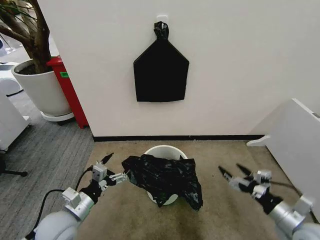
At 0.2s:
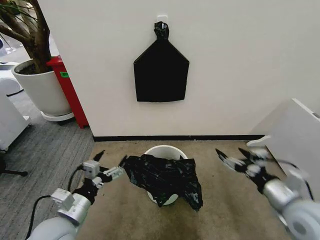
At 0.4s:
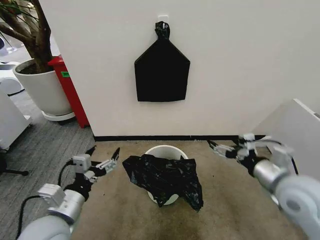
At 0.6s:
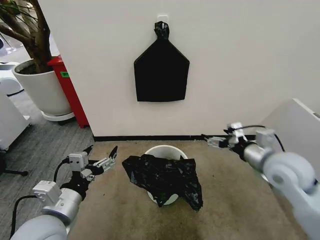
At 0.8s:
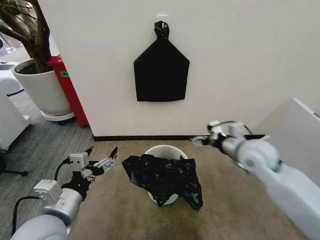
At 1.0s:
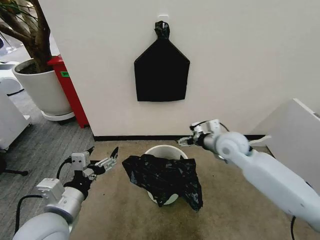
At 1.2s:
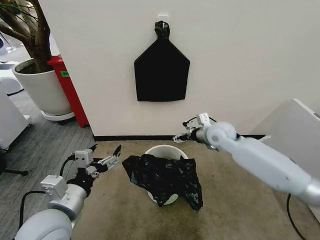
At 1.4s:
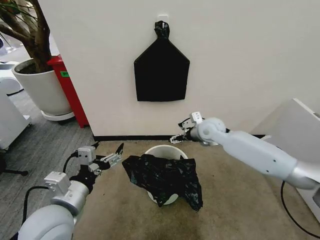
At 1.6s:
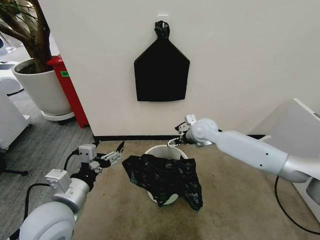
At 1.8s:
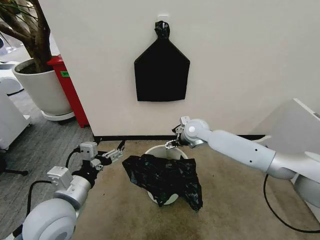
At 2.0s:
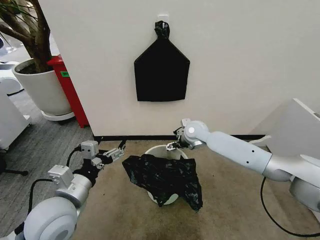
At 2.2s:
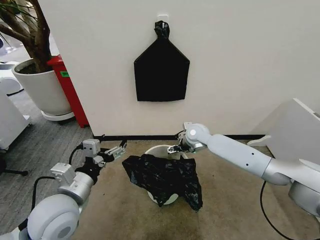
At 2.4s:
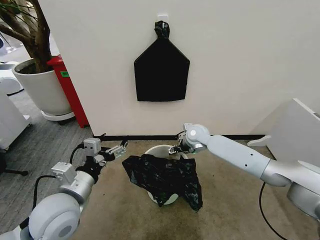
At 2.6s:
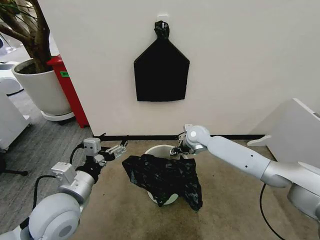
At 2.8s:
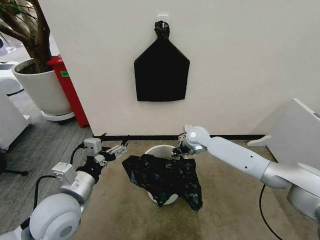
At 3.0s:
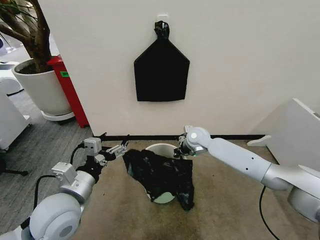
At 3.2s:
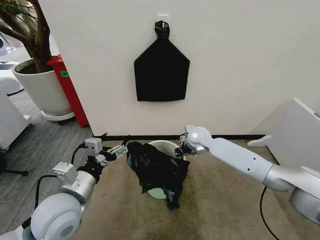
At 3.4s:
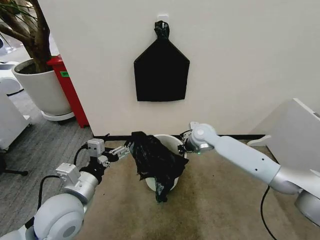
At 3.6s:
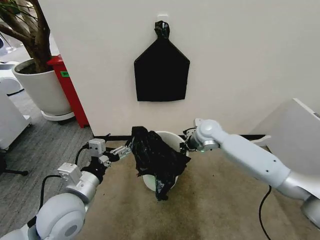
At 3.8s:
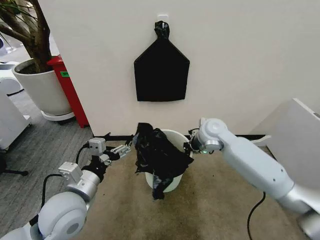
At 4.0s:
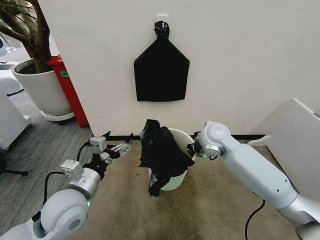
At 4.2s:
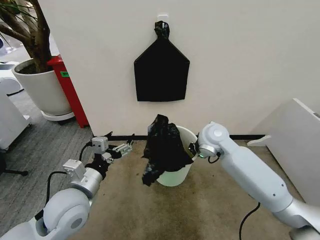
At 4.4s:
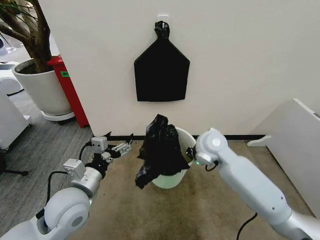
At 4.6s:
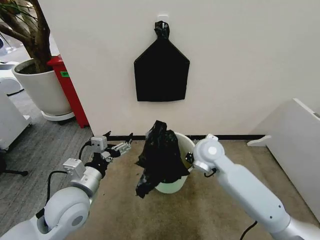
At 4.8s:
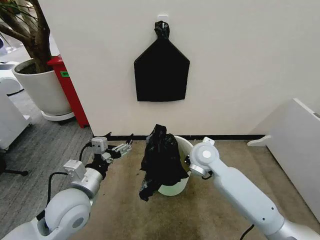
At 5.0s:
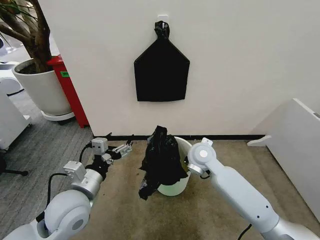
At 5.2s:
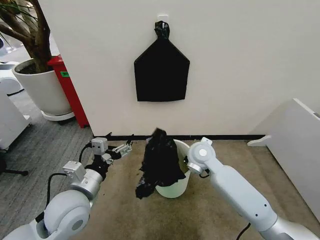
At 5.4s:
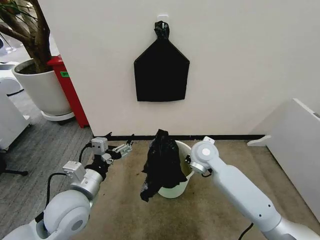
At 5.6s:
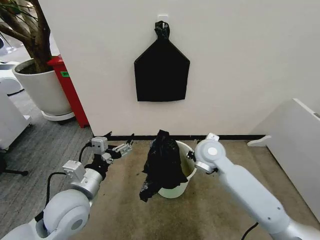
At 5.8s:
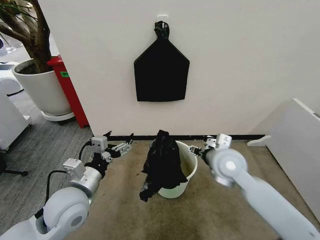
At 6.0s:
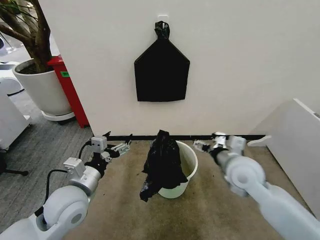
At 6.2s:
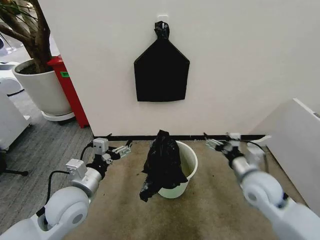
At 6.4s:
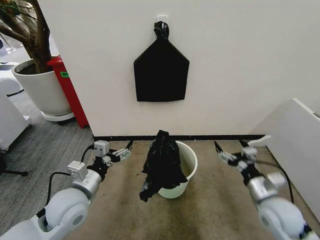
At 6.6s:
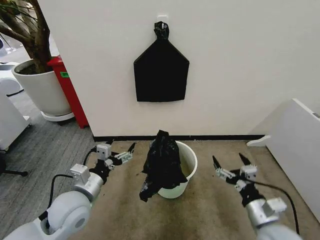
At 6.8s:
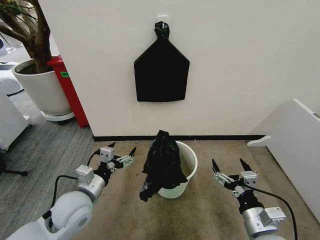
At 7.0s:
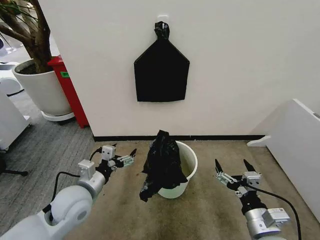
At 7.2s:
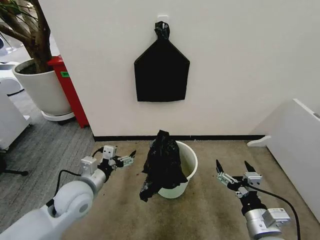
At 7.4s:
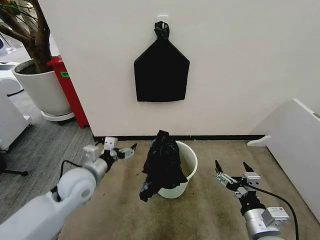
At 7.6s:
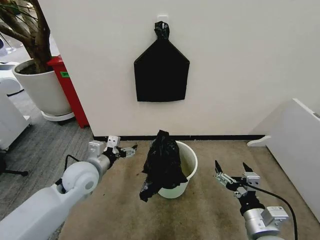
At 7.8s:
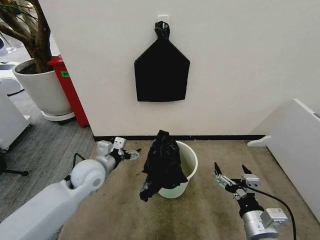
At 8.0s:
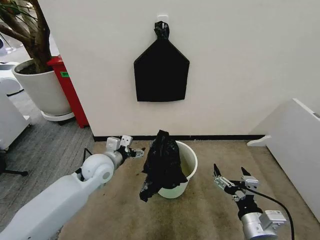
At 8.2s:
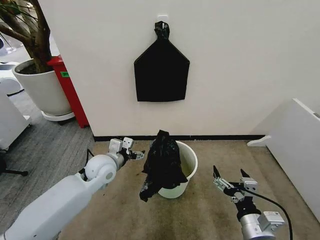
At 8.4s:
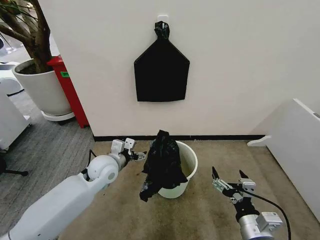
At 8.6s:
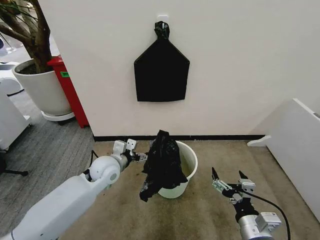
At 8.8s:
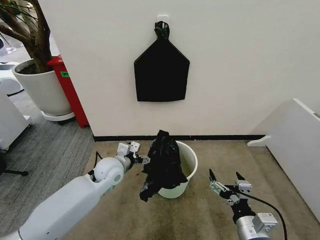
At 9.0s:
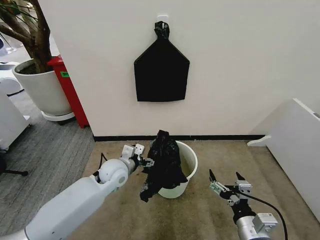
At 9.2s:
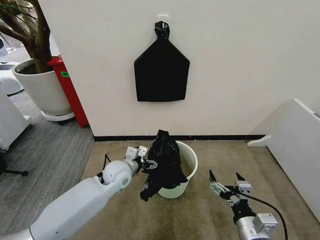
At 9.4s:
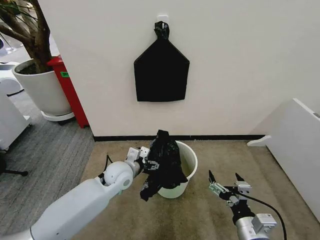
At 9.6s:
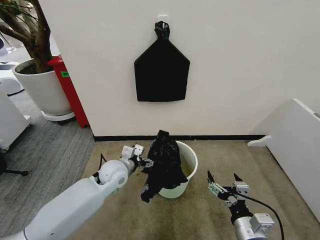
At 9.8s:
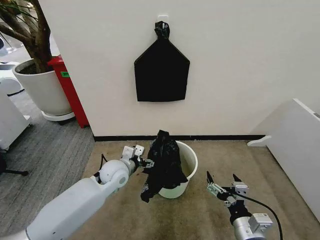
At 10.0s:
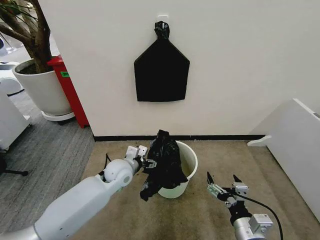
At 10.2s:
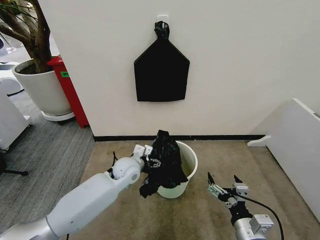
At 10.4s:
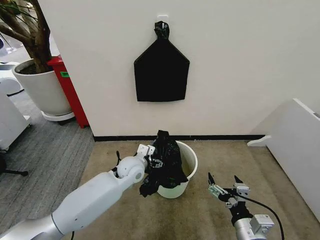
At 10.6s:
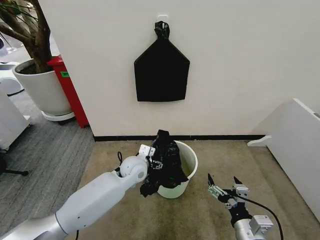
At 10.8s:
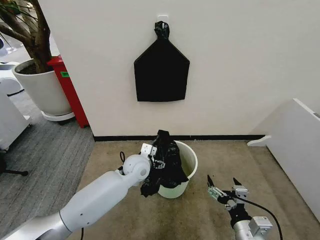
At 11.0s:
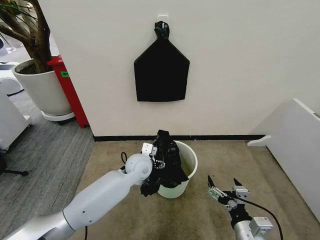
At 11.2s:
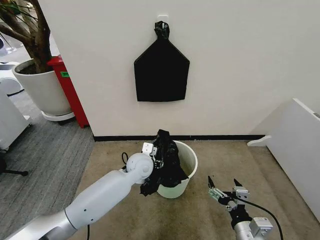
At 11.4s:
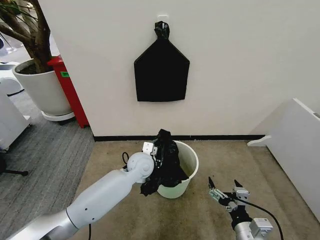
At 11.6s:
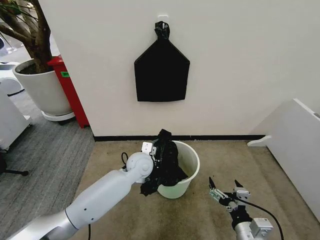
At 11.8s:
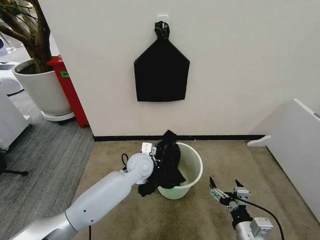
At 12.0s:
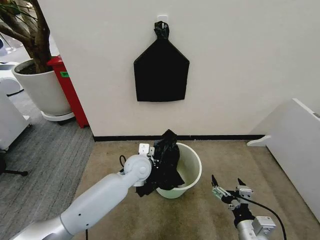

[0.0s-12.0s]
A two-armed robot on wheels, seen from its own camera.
Task of the whole recording: Place the garbage bag over the trash bin.
0.0s to 1.6s: The left gripper heads upward, covering some 10 cm; the right gripper is displaced forward and to the left by approximately 40 cm.
1.6s to 3.0s: The right gripper heads downward, covering roughly 5 cm, and closes its fingers.
3.0s to 4.4s: The right gripper goes some 15 cm backward and upward.
4.4s to 6.0s: The right gripper shifts about 10 cm backward and to the right, and opens its fingers.
6.0s to 7.6s: The left gripper travels forward by about 10 cm; the right gripper moves backward and downward, roughly 20 cm.
7.6s to 9.0s: The left gripper heads to the right, downward and forward, covering about 10 cm.
9.0s to 10.4s: The left gripper goes approximately 5 cm to the right.
10.4s to 12.0s: The left gripper closes its fingers.

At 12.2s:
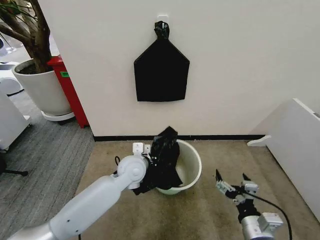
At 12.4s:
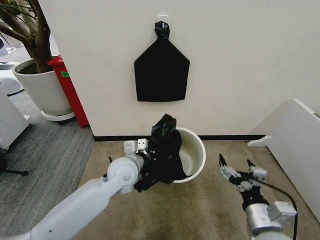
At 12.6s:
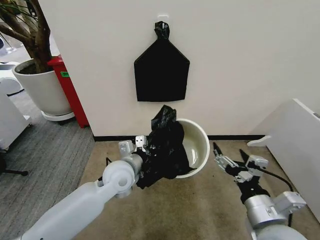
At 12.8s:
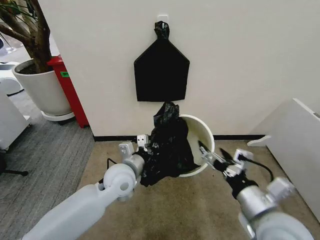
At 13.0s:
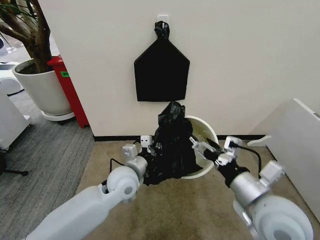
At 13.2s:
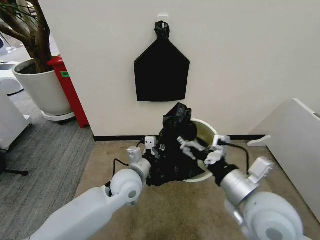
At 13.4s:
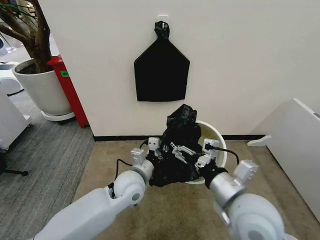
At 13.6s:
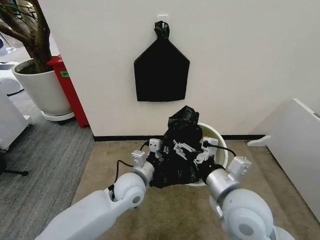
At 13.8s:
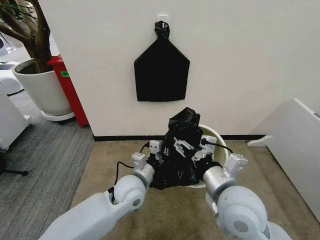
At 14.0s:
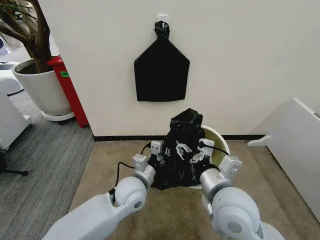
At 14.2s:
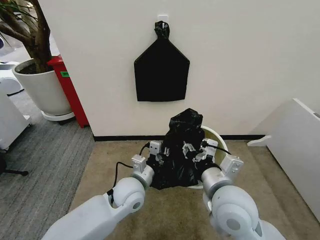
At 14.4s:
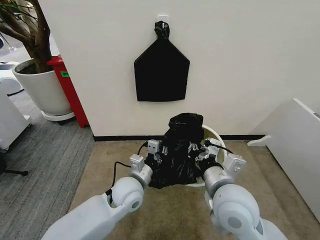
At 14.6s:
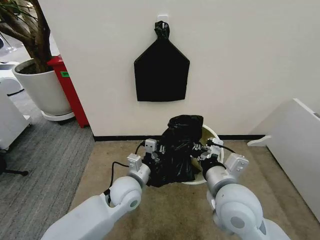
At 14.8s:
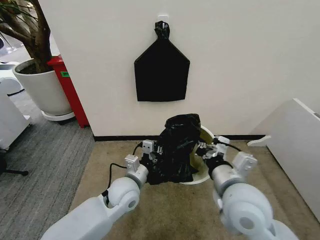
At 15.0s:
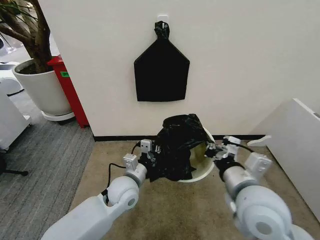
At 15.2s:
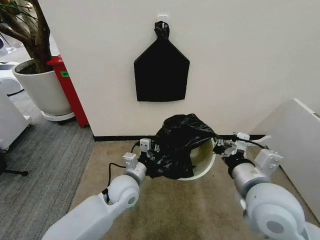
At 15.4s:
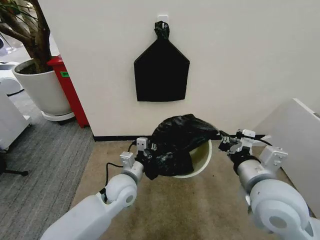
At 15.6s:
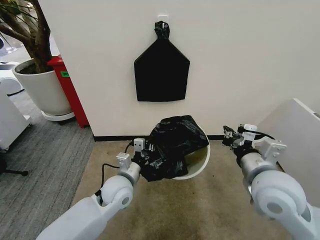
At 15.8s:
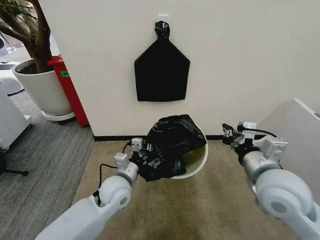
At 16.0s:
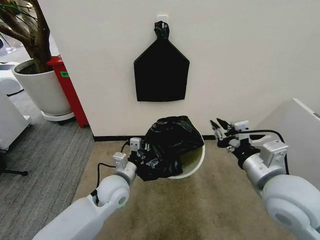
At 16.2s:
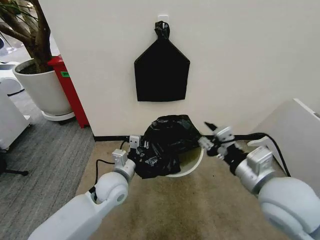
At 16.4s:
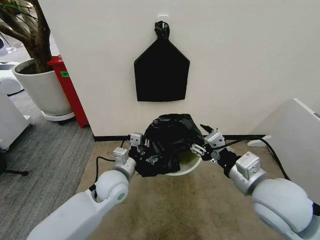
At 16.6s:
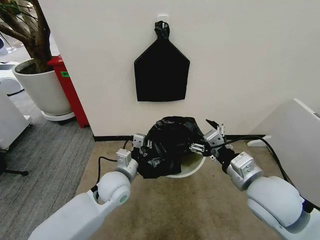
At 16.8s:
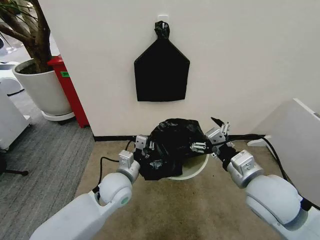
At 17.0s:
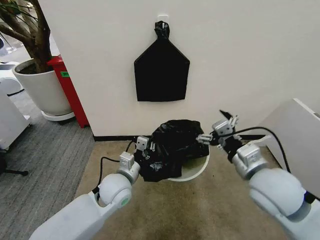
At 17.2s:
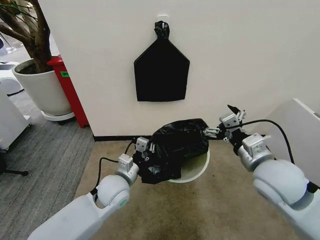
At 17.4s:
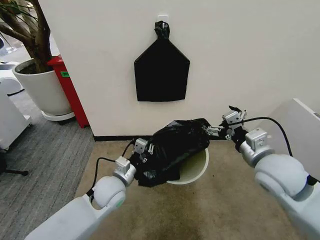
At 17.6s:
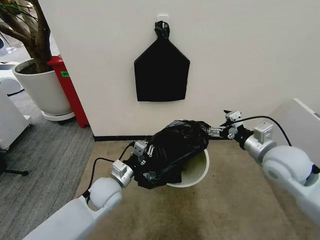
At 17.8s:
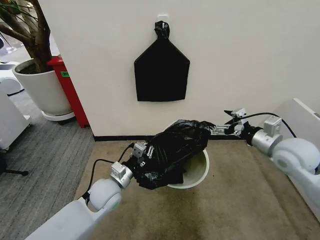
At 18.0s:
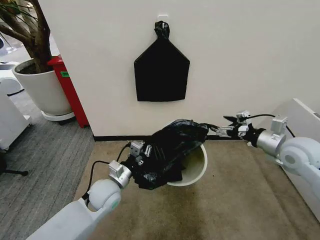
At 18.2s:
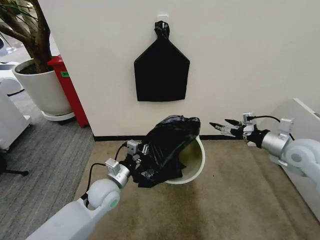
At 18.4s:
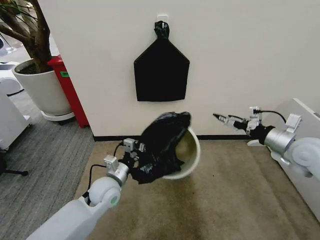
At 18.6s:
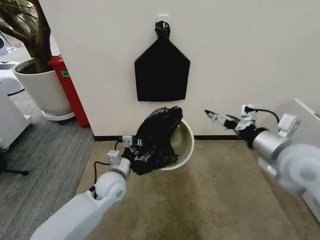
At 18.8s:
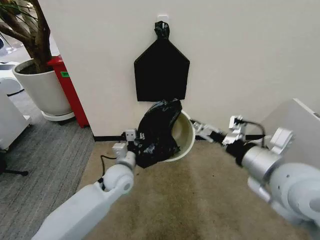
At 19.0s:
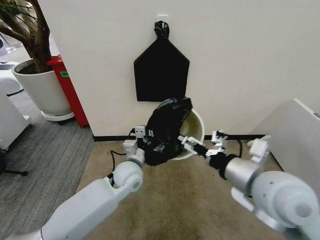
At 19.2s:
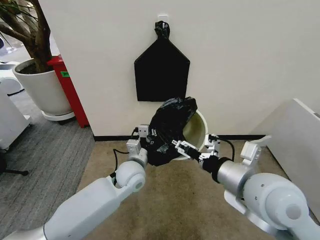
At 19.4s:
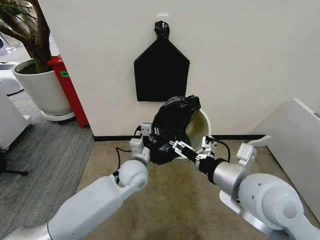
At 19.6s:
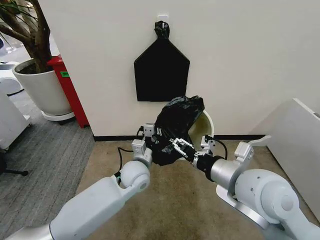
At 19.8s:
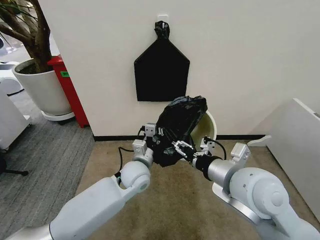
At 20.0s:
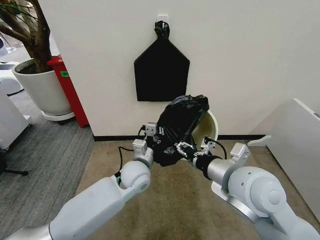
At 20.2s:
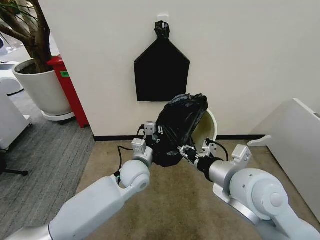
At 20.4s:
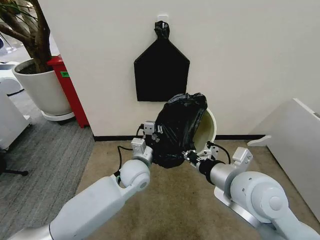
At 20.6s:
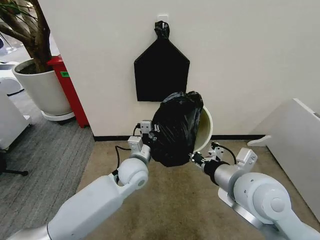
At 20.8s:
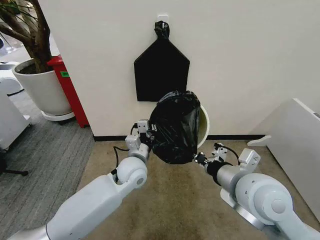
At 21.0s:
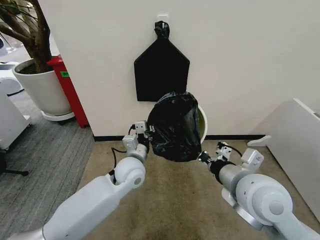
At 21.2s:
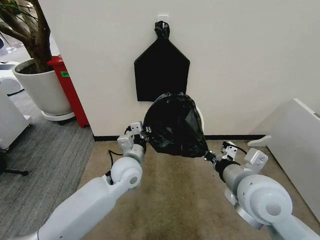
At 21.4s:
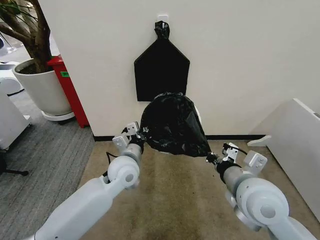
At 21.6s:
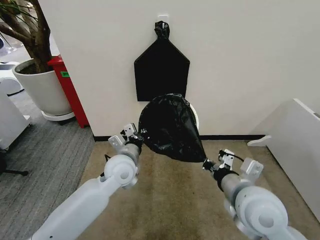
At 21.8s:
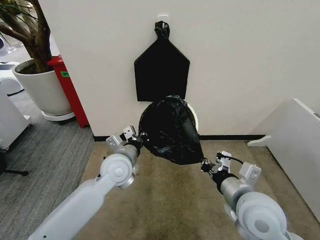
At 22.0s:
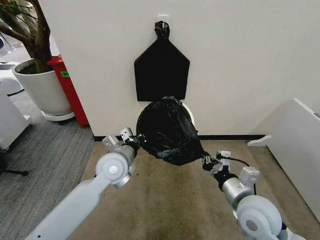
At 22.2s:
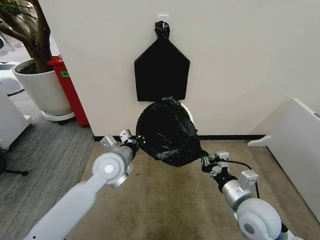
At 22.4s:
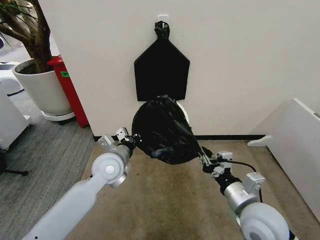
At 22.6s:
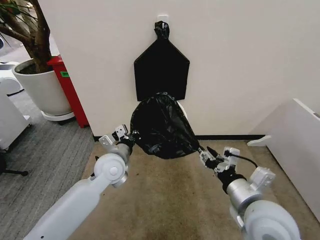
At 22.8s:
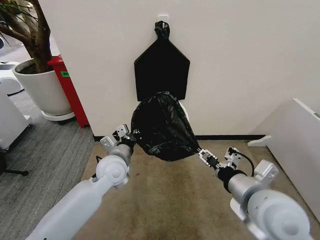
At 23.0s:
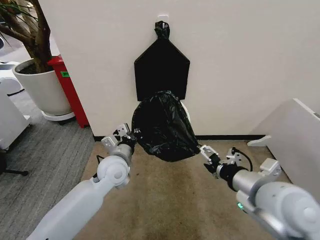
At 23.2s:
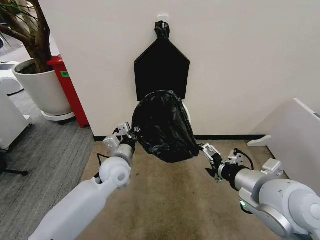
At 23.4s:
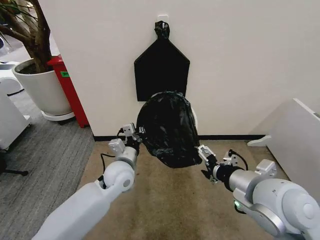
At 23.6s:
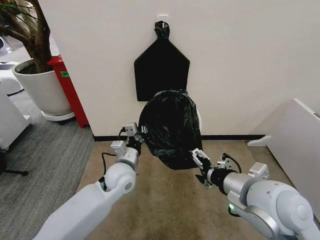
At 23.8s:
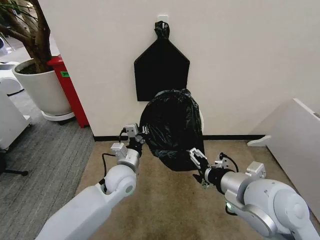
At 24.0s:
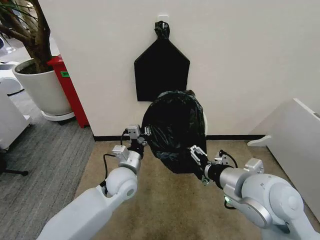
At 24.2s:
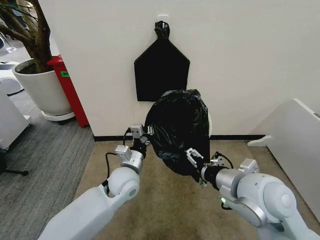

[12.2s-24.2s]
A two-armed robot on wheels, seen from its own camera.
Task of the whole recording: Place the garbage bag over the trash bin.
12.2s to 13.8s: The left gripper is displaced backward by about 5 cm; the right gripper goes some 20 cm upward, to the left and forward.
13.8s to 15.2s: The right gripper is displaced to the right by about 5 cm, and closes.
15.2s to 16.6s: The right gripper opens.
16.6s to 18.2s: The left gripper shifts by approximately 5 cm; the right gripper is displaced to the right and forward by roughly 20 cm.
18.2s to 19.8s: The left gripper is displaced to the right by about 10 cm. The right gripper moves to the left and backward, approximately 25 cm.
19.8s to 21.2s: The right gripper closes.
21.2s to 22.6s: The left gripper moves to the left, about 5 cm. The right gripper opens up.
22.6s to 24.2s: The right gripper heads upward, covering about 5 cm, and opens its fingers, while the left gripper moves roughly 5 cm.
